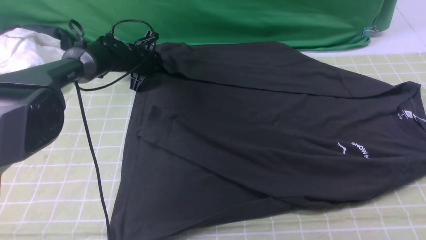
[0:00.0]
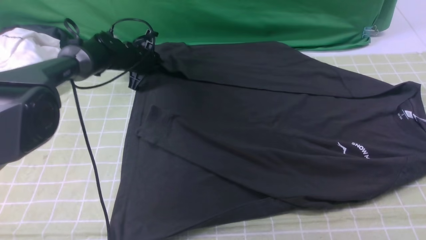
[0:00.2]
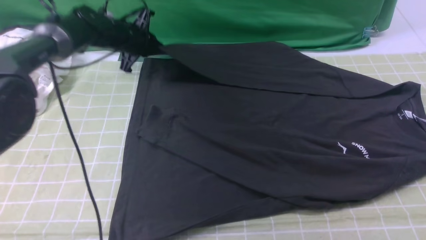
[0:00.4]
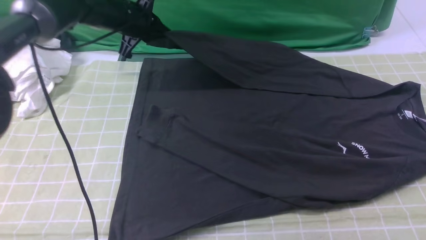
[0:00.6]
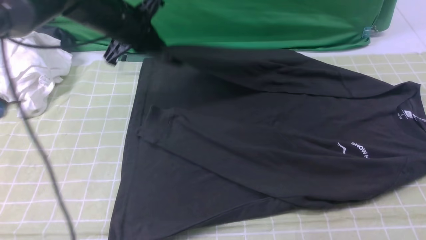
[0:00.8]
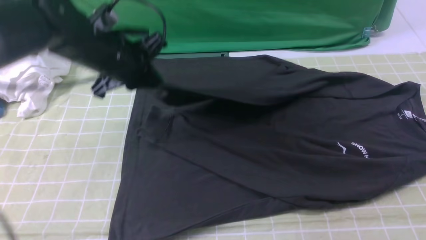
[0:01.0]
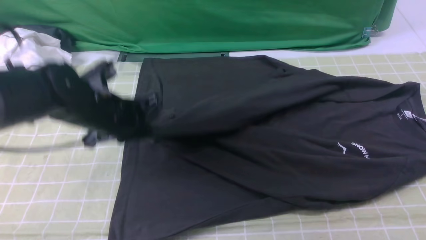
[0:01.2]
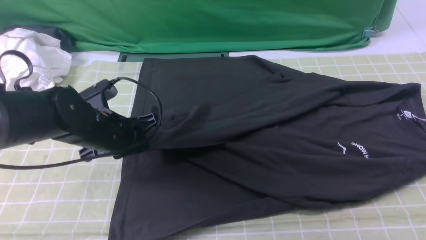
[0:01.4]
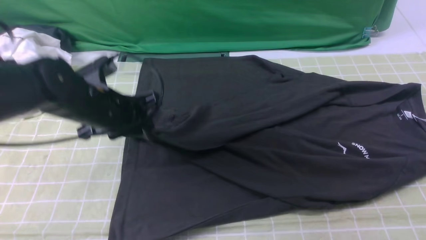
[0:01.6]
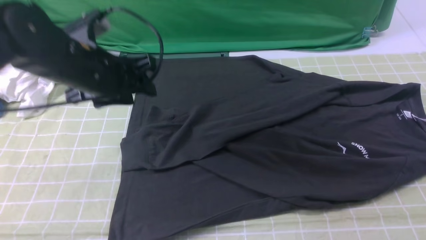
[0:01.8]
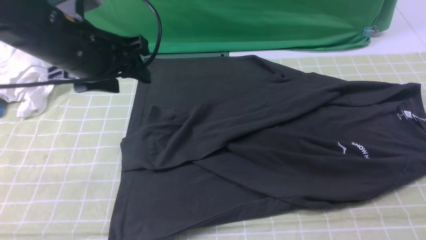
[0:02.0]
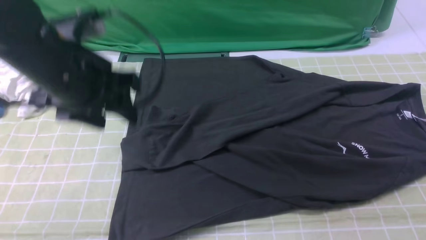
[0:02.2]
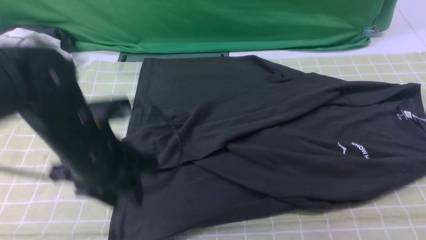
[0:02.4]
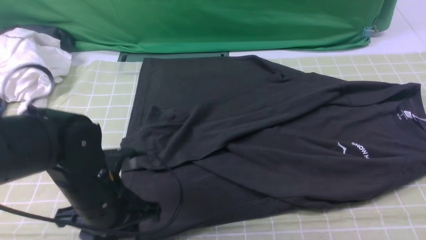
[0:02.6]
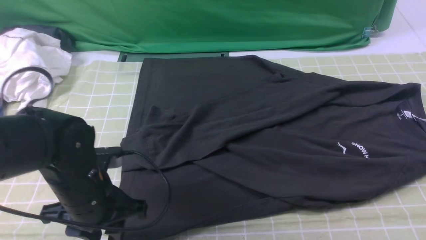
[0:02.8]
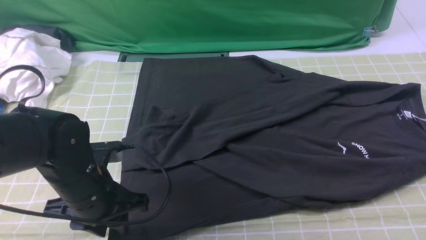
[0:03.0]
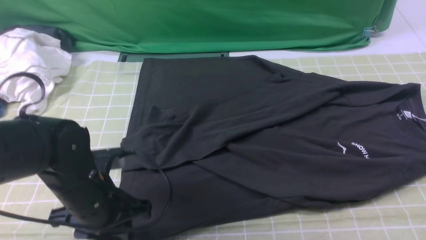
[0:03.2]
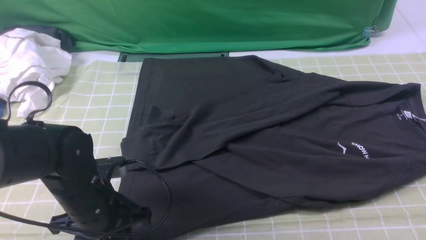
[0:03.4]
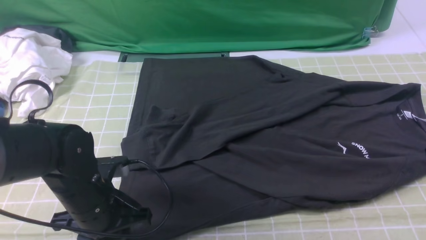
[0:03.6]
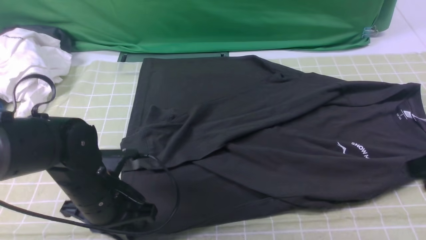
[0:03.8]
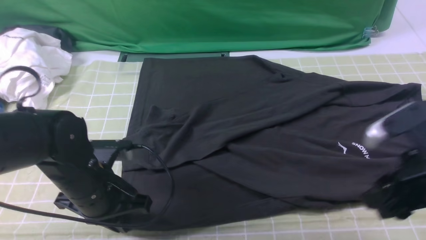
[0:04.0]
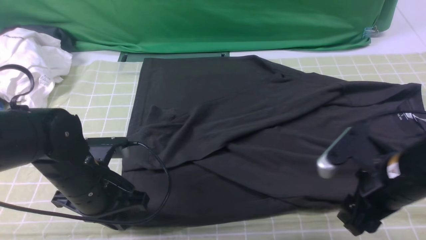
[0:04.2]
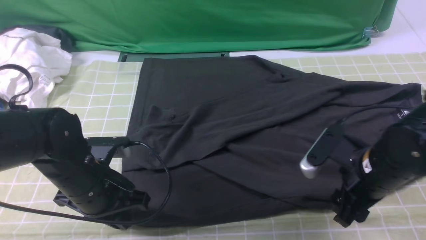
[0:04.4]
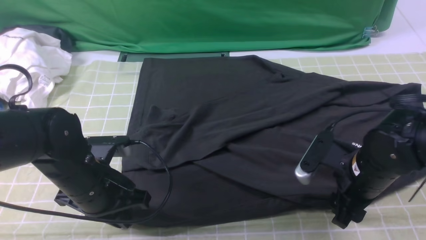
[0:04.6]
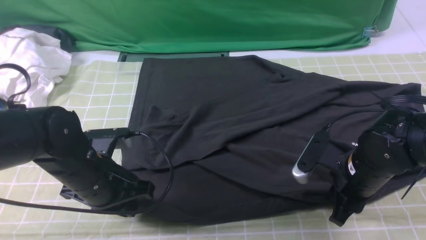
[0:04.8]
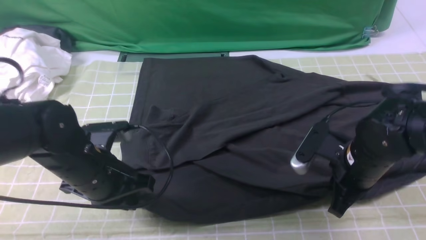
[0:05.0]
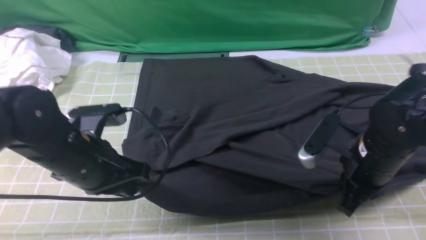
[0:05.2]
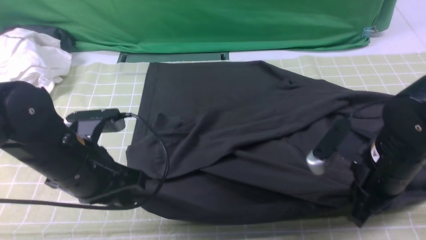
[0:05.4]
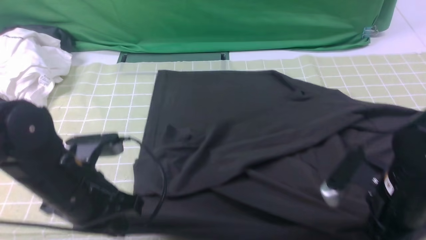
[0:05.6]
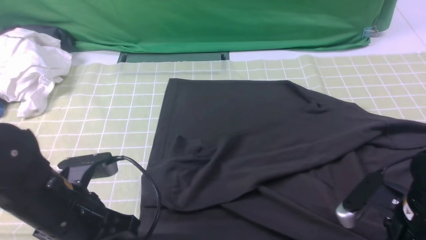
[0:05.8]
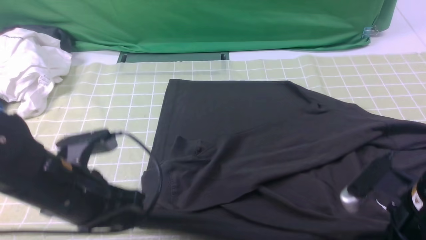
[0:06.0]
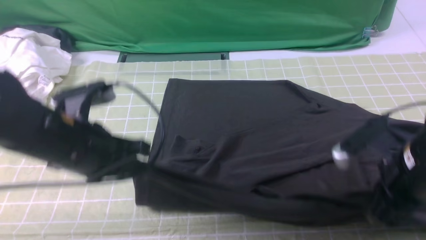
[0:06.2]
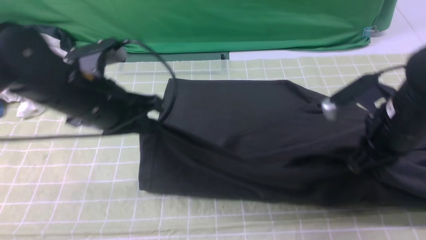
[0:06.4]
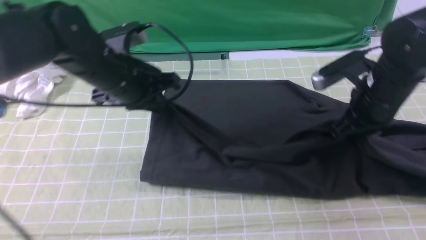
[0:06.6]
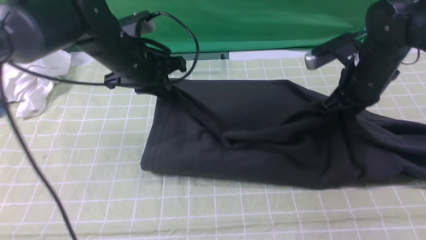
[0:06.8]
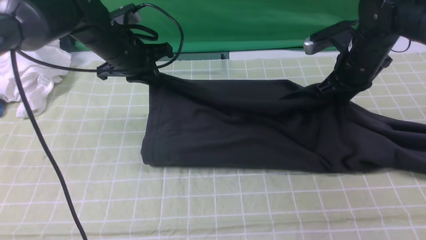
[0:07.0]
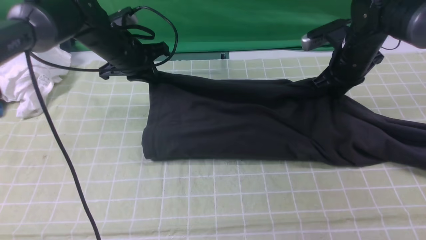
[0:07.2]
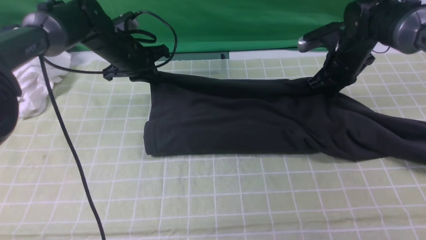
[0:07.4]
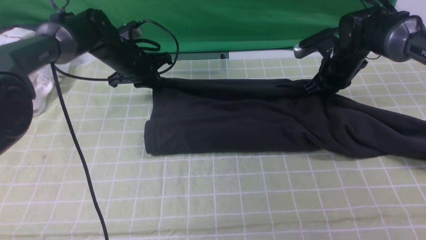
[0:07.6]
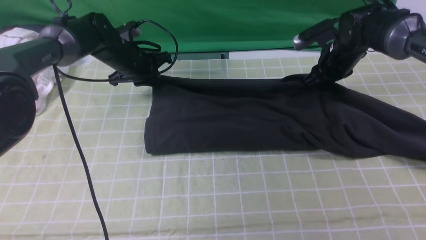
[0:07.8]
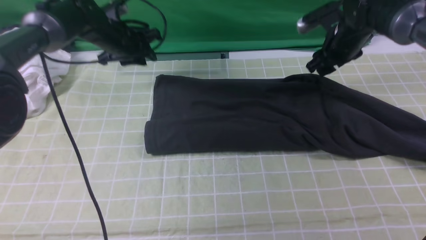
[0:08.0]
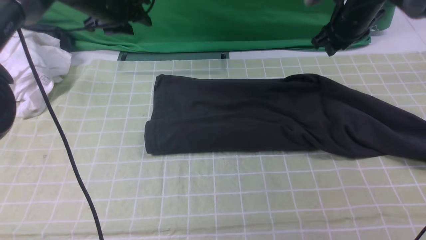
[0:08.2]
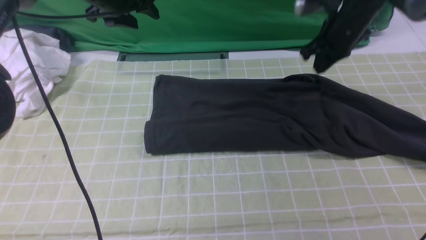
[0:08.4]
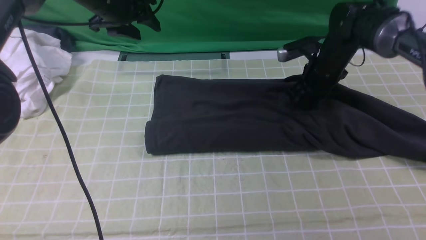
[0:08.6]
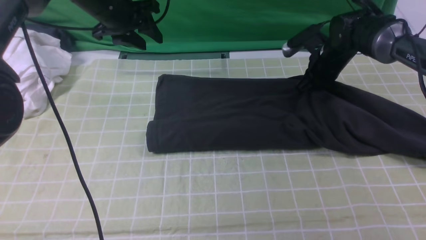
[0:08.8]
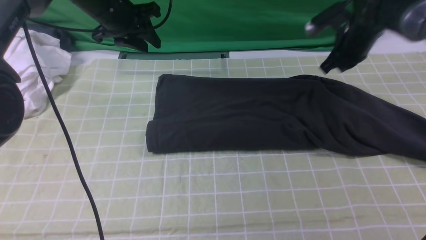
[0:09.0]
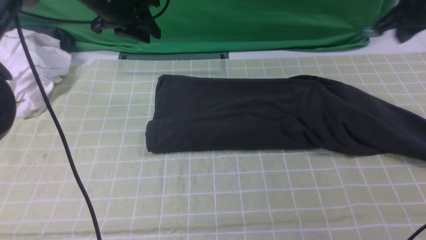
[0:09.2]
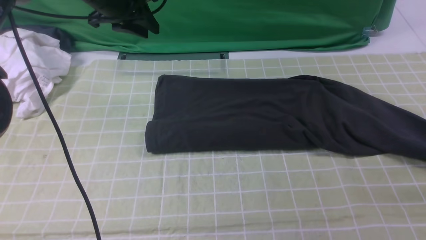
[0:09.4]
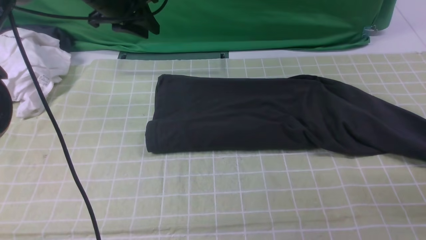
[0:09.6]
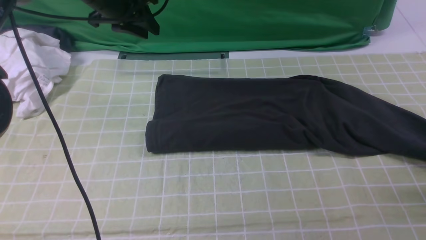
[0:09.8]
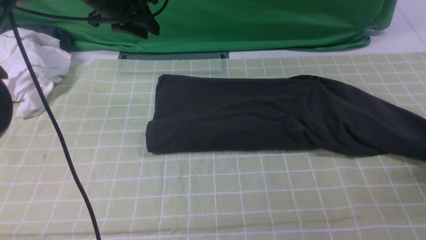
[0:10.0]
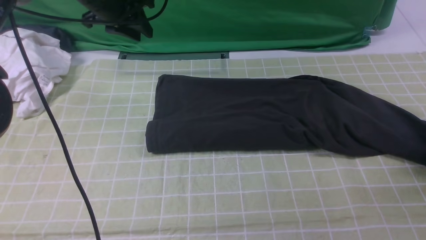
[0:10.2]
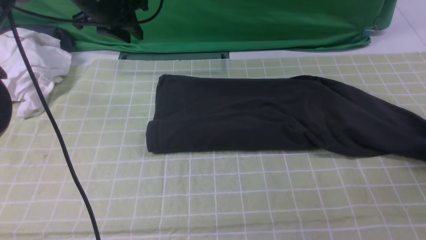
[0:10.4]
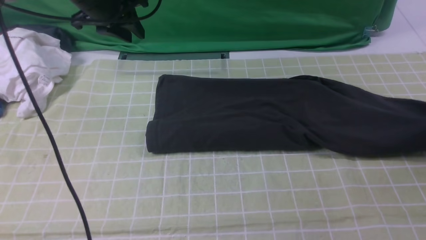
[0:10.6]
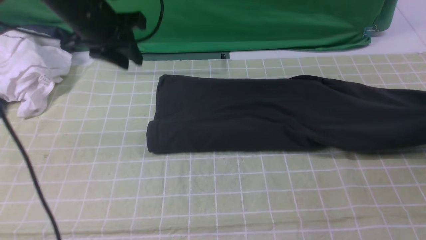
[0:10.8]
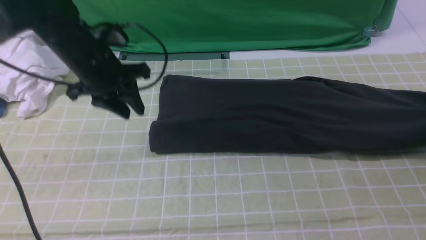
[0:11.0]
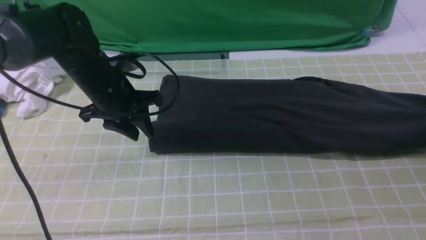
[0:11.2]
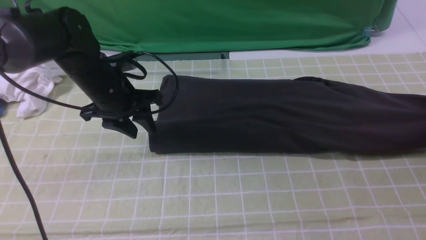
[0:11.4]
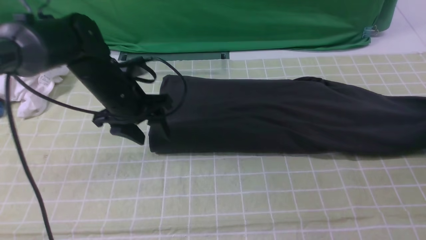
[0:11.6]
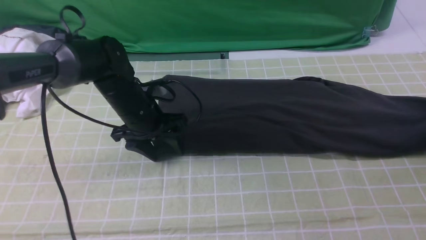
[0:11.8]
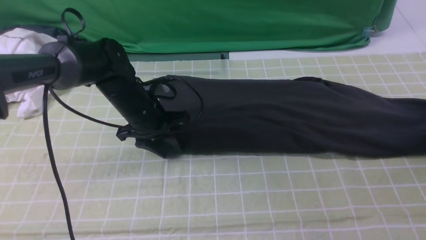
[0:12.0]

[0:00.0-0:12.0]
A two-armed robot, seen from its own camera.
Step, 0:02.0 to 0:04.8: use both arms simultaneously to clamp the lower edge of the clothing fabric.
Step, 0:05.0 to 0:08.0: use both arms to drag the lower edge of the fabric forward and fold it over the upper edge.
Step, 0:08.2 to 0:10.6: use the right arm to clamp the right edge of the fabric.
0:00.0 to 0:01.6: The left gripper is displaced backward and upward by approximately 25 cm.
0:01.6 to 0:03.0: The left gripper goes roughly 10 cm backward and downward.
0:03.0 to 0:04.4: The left gripper closes its fingers. The right gripper goes about 20 cm downward and to the left, and opens up.
0:04.4 to 0:06.0: The right gripper changes place by about 5 cm, and closes its fingers, while the left gripper heads upward, covering some 5 cm.
0:06.0 to 0:07.6: The grippers both shift forward by some 30 cm.
0:07.6 to 0:09.0: The right gripper swings up and down, approximately 5 cm each way, with 2 reversals, and opens, then closes once more. The left gripper heads upward, covering some 10 cm, and opens its fingers.
0:09.0 to 0:10.4: The right gripper travels to the right, backward and downward by approximately 25 cm, and opens and closes again.
0:10.4 to 0:12.0: The left gripper heads downward, backward and to the right, covering roughly 20 cm.

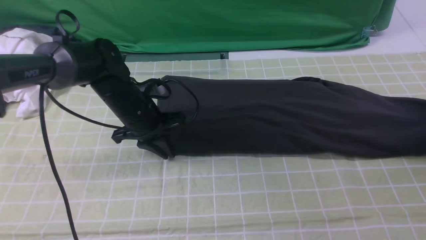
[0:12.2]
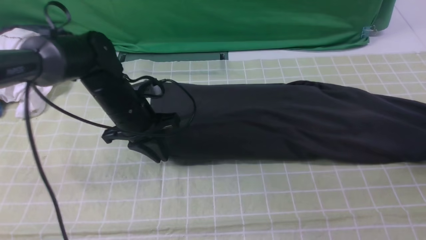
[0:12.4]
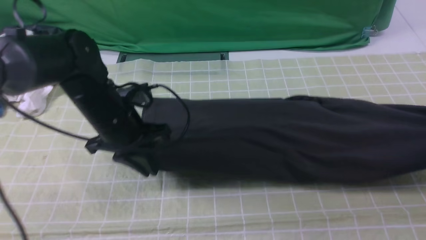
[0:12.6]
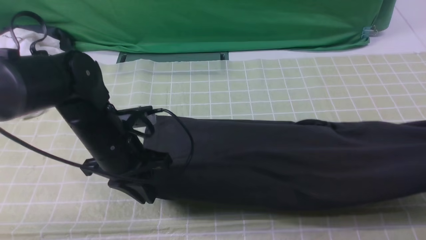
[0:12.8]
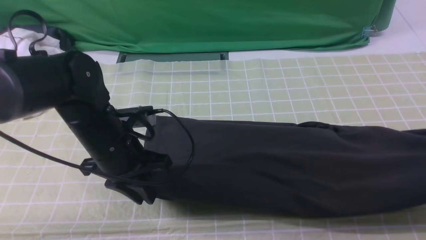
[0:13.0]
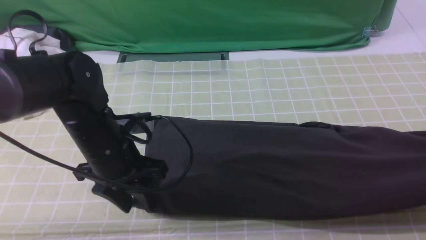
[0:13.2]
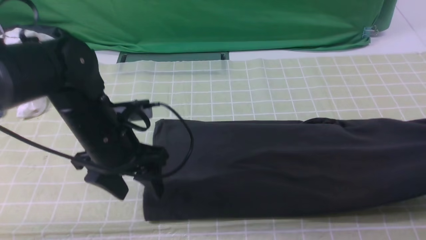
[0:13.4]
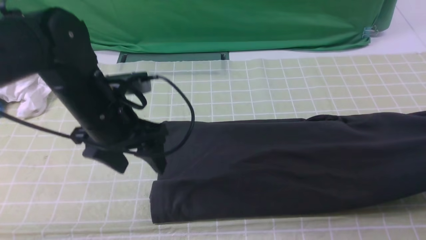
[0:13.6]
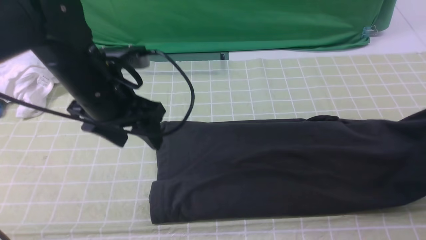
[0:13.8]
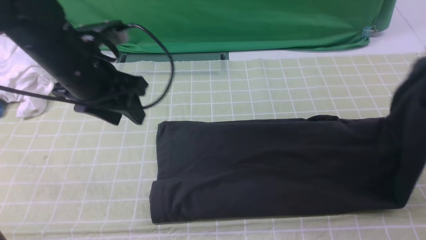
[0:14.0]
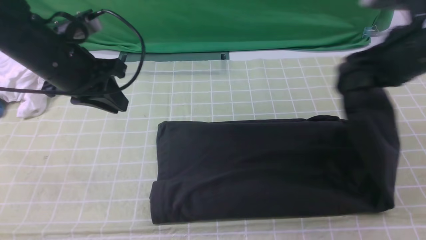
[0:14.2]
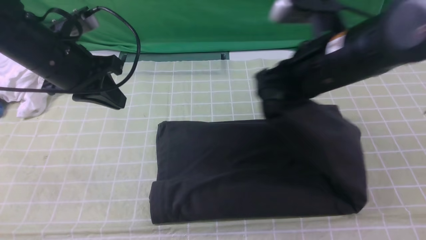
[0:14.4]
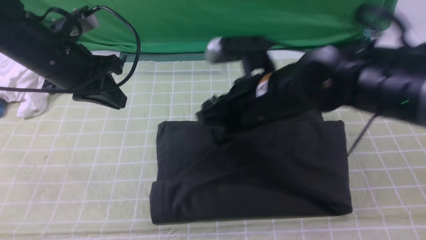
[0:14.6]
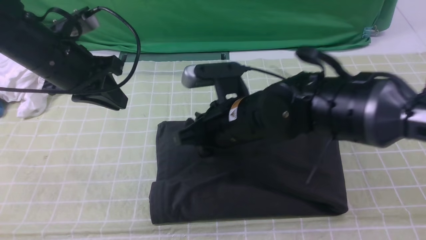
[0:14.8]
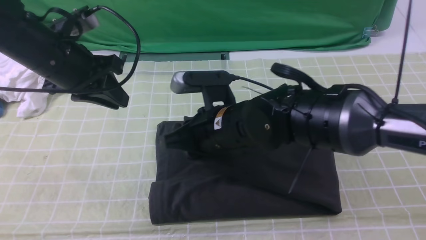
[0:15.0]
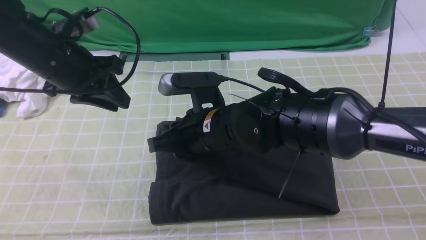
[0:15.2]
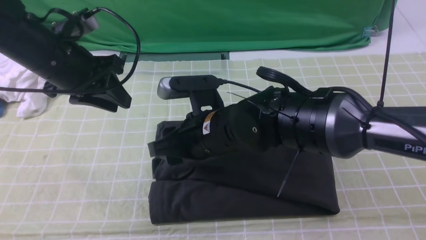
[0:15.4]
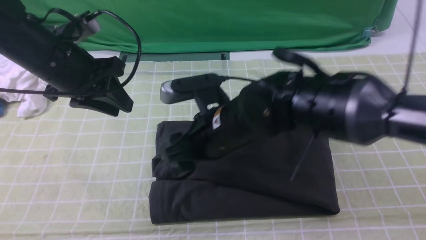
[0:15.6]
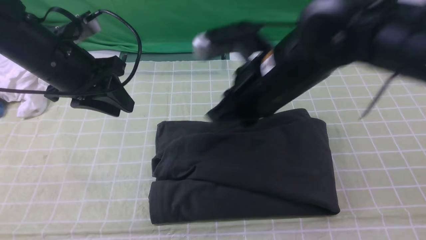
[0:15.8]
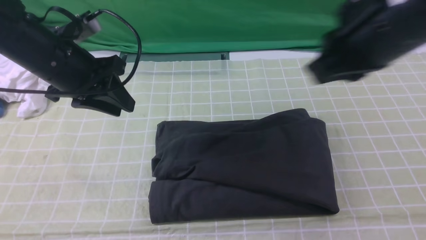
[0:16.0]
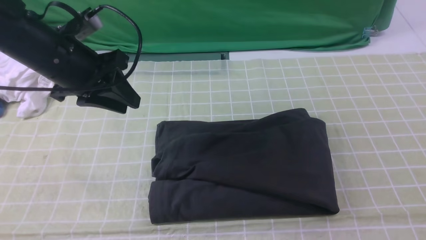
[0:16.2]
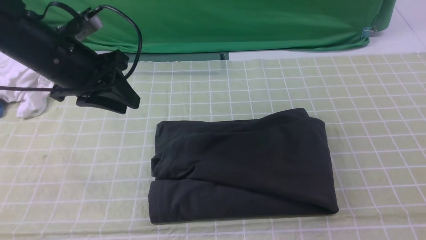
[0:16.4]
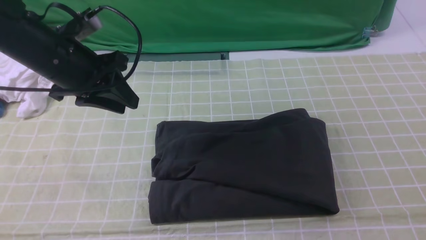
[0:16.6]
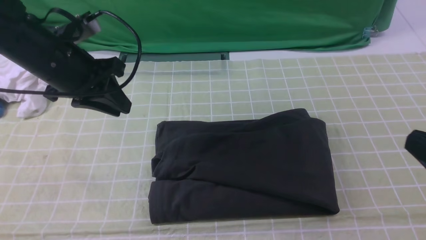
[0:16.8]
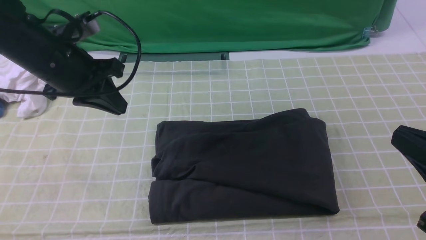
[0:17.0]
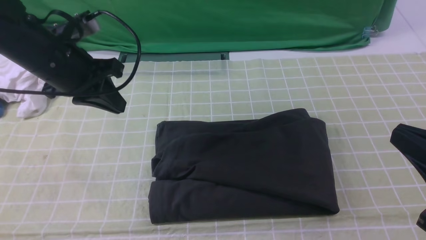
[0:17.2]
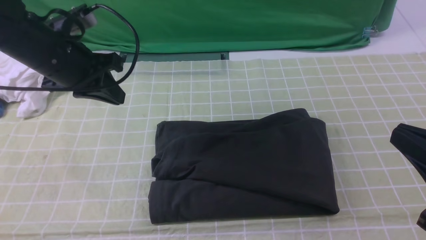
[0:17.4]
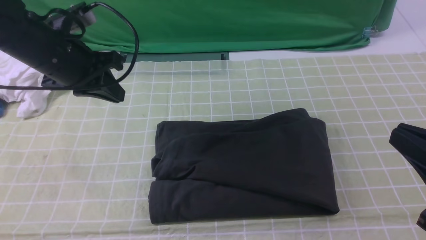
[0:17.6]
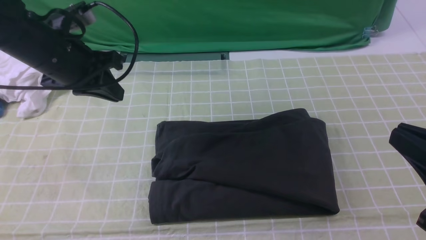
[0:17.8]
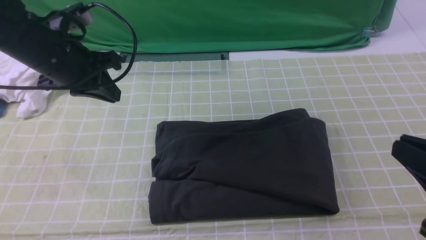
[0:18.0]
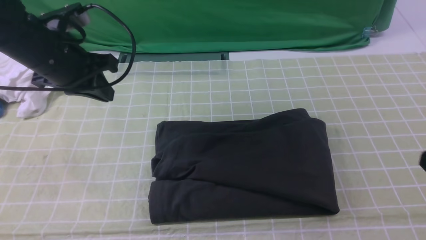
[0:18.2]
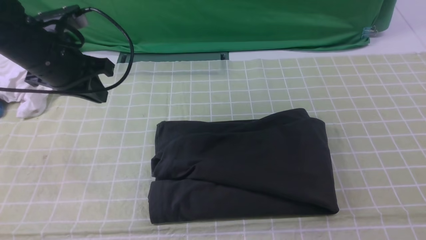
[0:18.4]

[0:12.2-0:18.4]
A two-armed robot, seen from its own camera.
Step, 0:12.2 to 0:15.6: use the right arm to drag the right edge of the fabric to the left and folds it over the left edge.
0:12.2 to 0:13.8: The right gripper is displaced upward, backward and to the left by roughly 15 cm; the left gripper shifts about 15 cm upward and backward, and opens its fingers.
0:13.8 to 0:15.4: The left gripper heads to the left, covering some 5 cm, and closes, while the right gripper shifts about 40 cm to the left, and opens its fingers.
0:15.4 to 0:16.8: The right gripper travels to the right and backward by approximately 30 cm, and closes.
